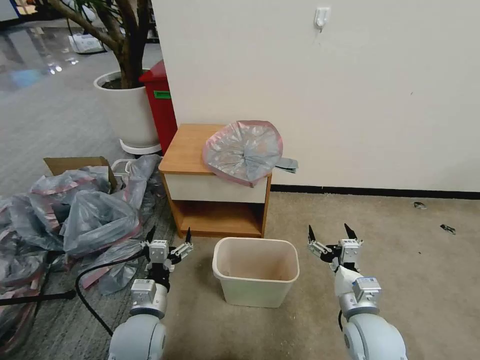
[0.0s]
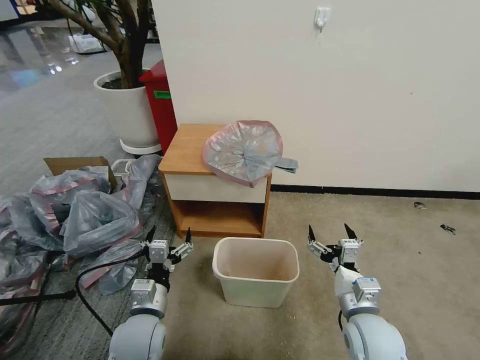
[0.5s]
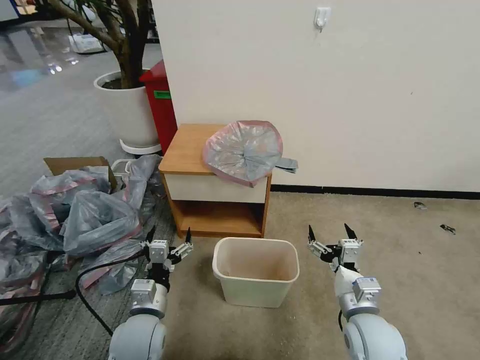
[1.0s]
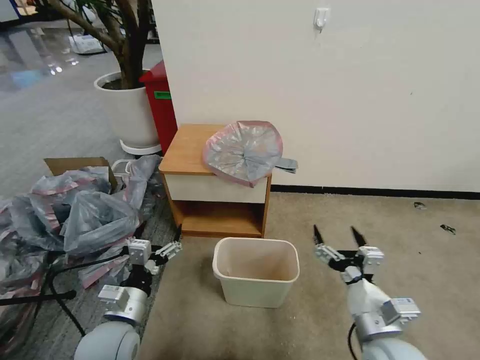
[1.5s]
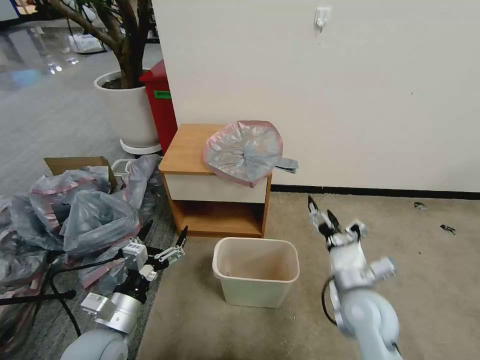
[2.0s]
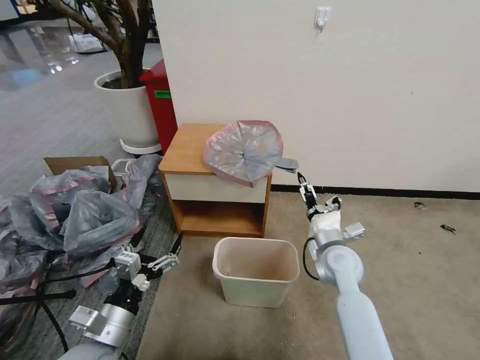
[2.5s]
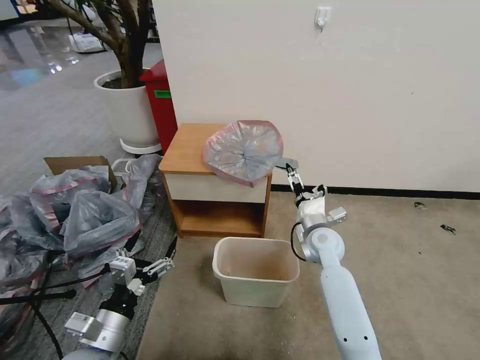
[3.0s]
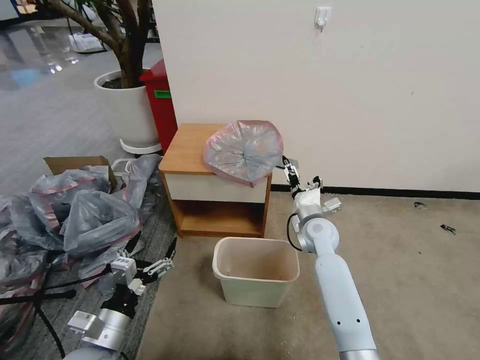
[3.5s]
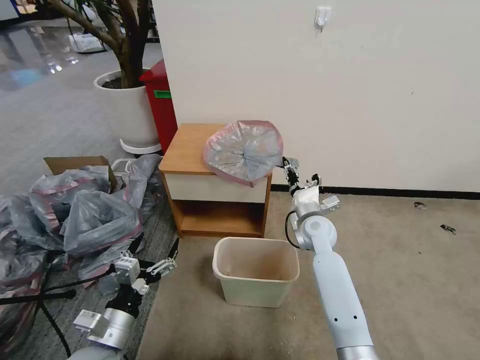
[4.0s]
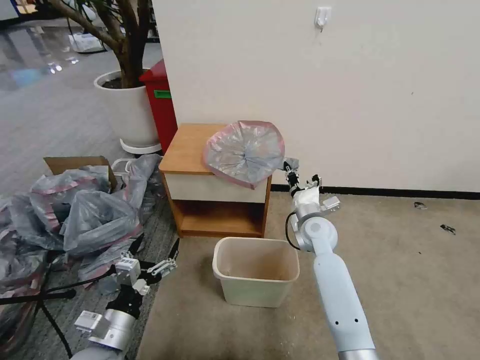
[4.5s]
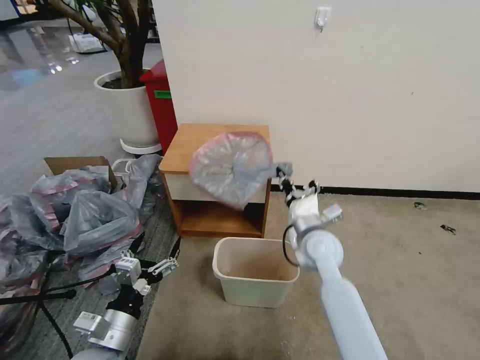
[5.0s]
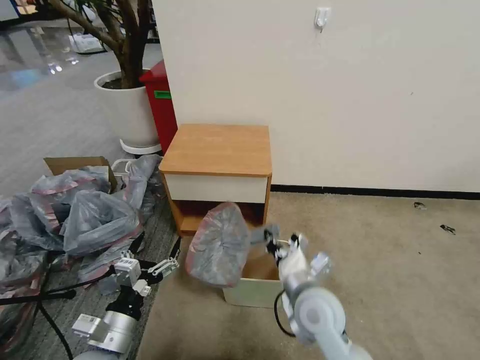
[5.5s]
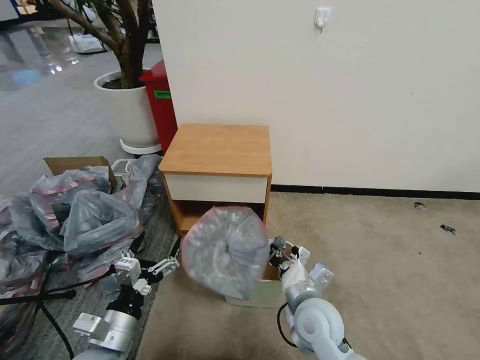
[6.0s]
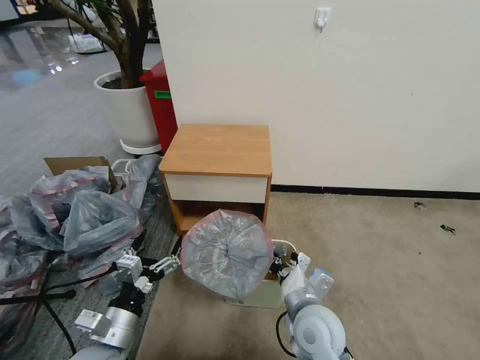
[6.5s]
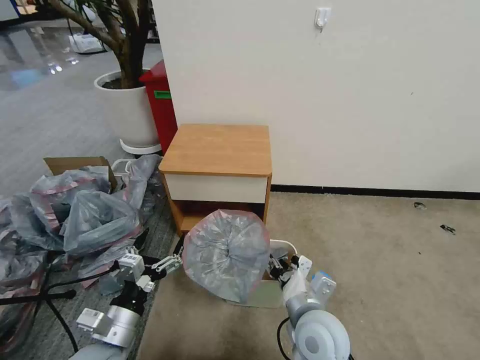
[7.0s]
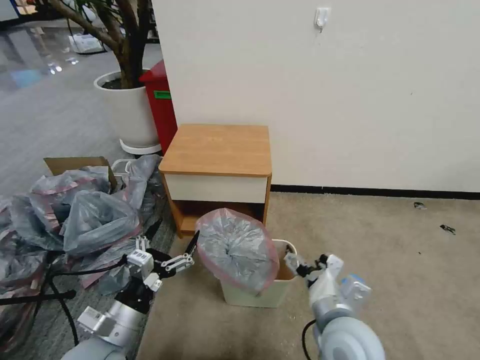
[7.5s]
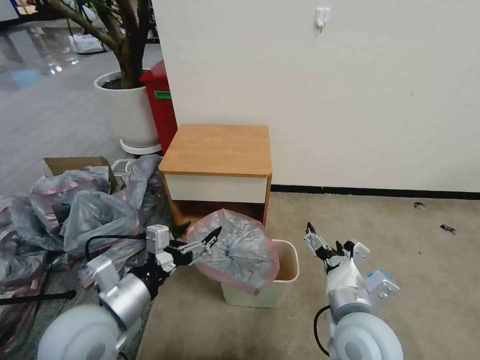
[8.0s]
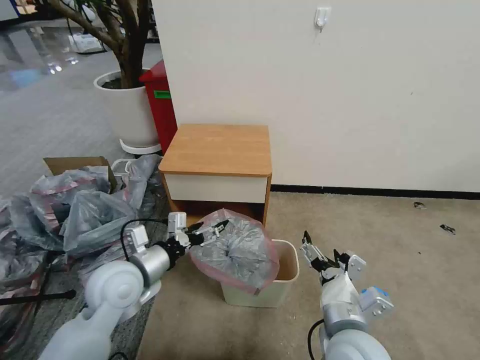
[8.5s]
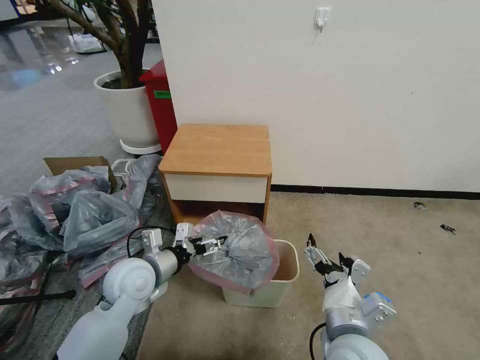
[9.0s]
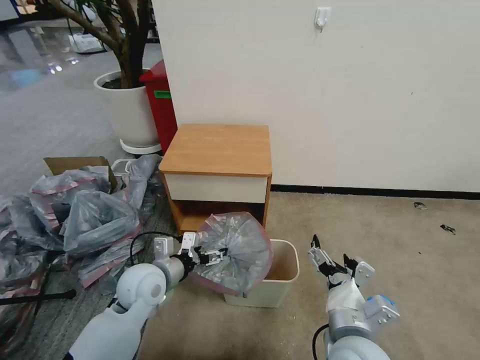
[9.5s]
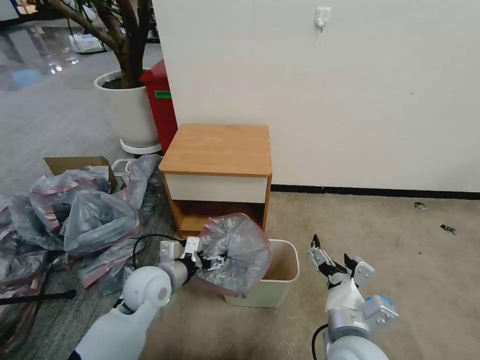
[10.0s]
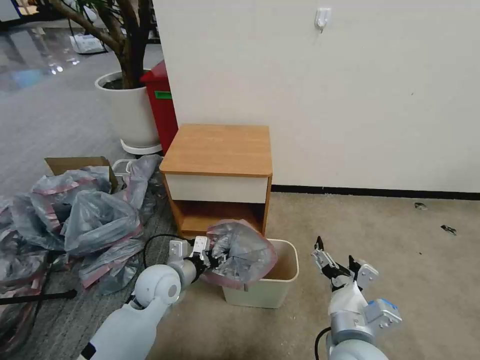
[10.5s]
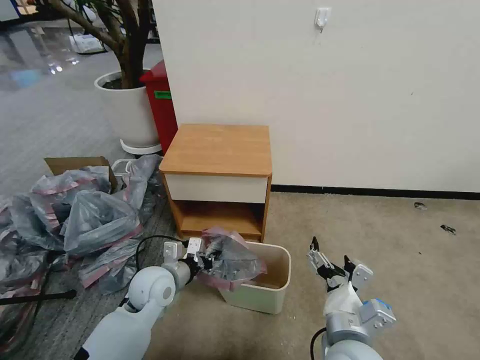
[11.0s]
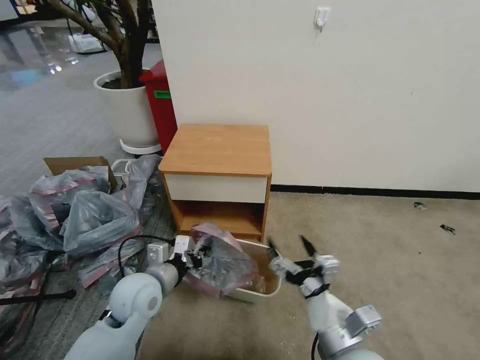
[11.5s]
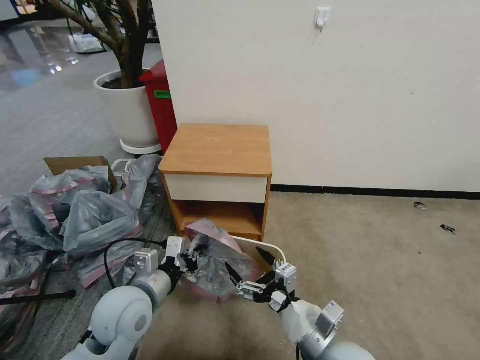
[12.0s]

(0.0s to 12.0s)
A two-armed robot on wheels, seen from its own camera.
Task of the whole recording: Pick up the garbage bag from the table and place it over the trash can.
2.0s - 4.0s: The right gripper moves forward, roughly 20 cm, and closes up.
4.0s - 6.0s: The right gripper goes roughly 20 cm backward, and closes.
6.0s - 8.0s: Both grippers move upward, some 10 cm. The right gripper opens its fingers.
8.0s - 10.0s: The left gripper shifts about 15 cm forward and downward.
10.0s - 12.0s: The left gripper goes roughly 10 cm backward and upward, and closes its fingers.

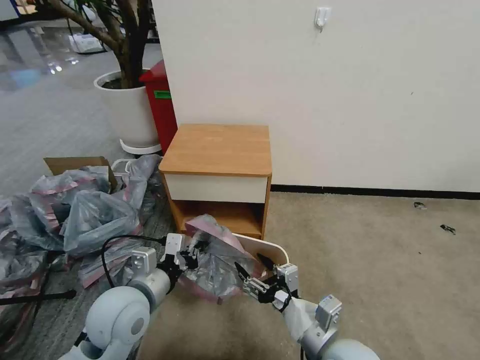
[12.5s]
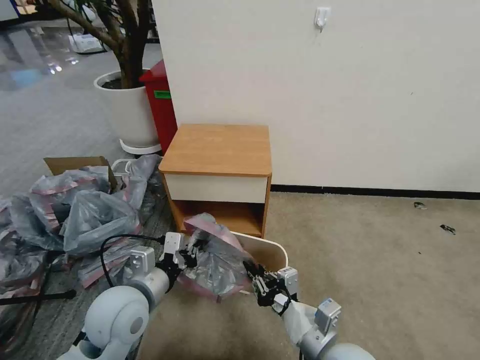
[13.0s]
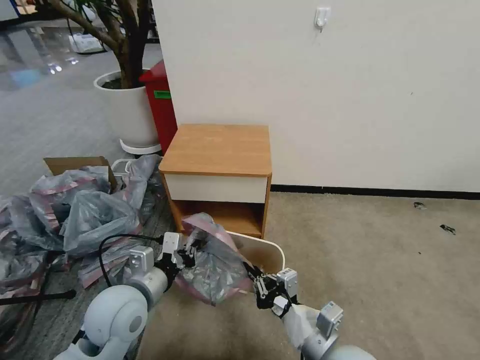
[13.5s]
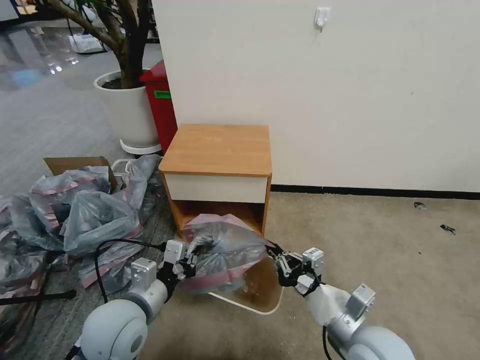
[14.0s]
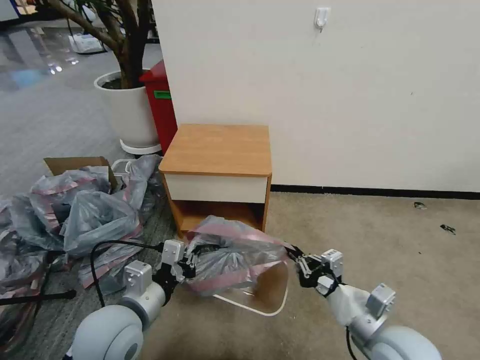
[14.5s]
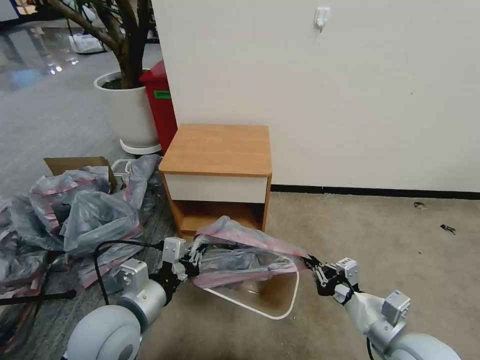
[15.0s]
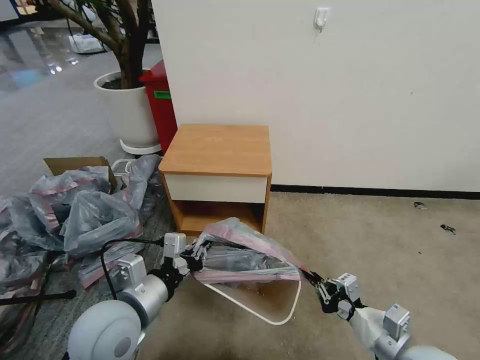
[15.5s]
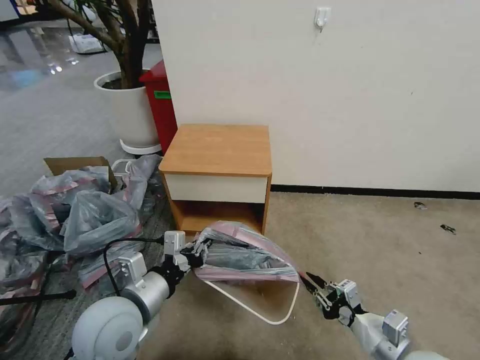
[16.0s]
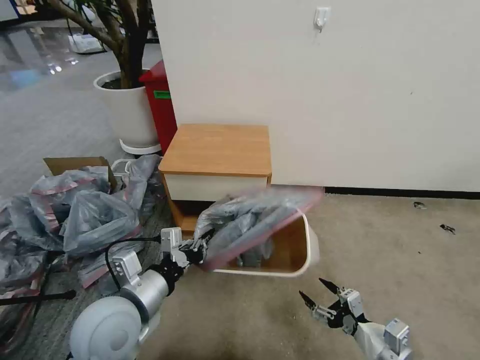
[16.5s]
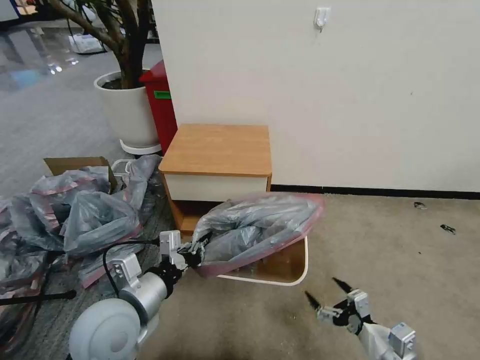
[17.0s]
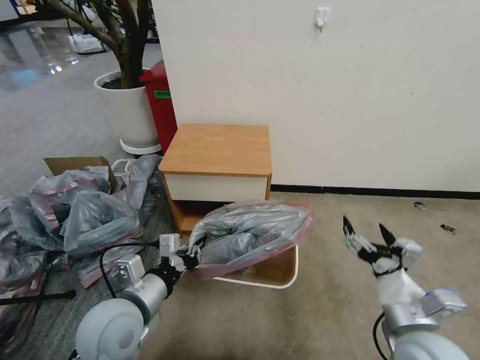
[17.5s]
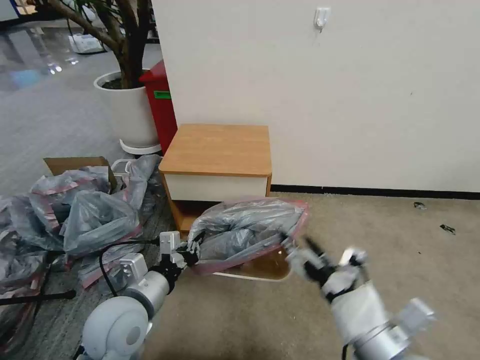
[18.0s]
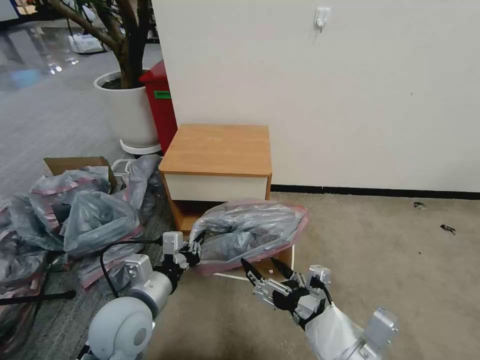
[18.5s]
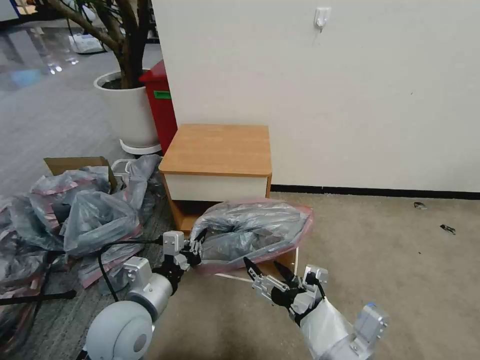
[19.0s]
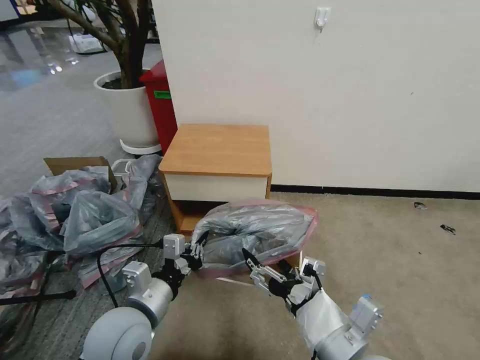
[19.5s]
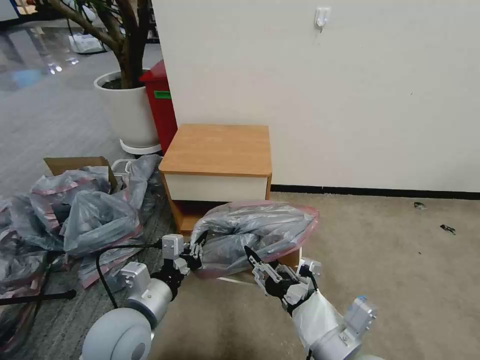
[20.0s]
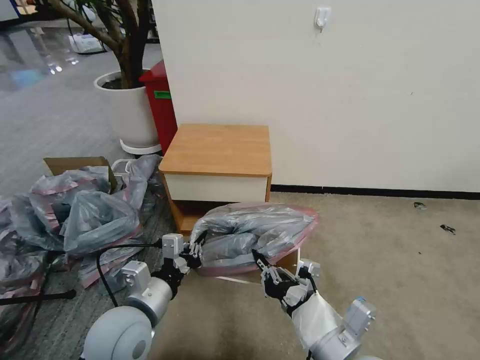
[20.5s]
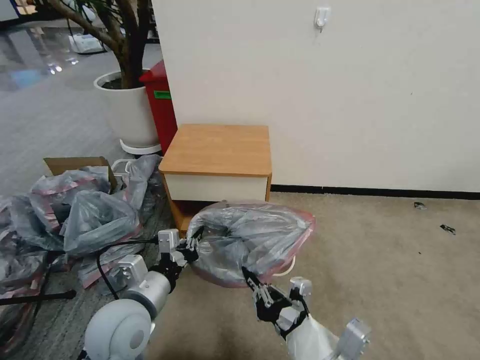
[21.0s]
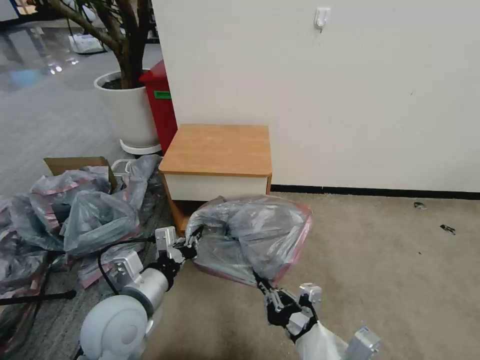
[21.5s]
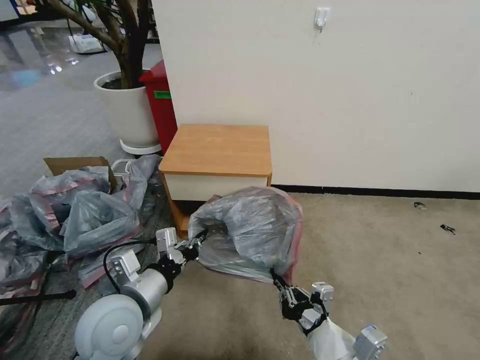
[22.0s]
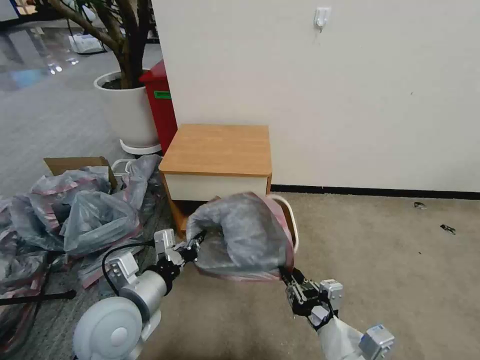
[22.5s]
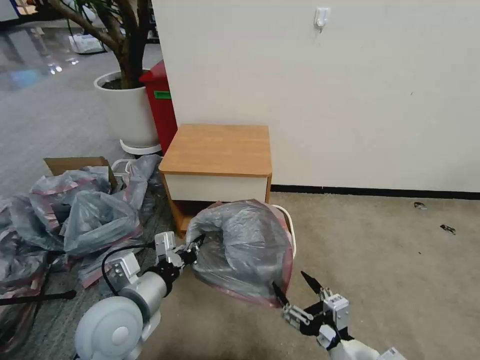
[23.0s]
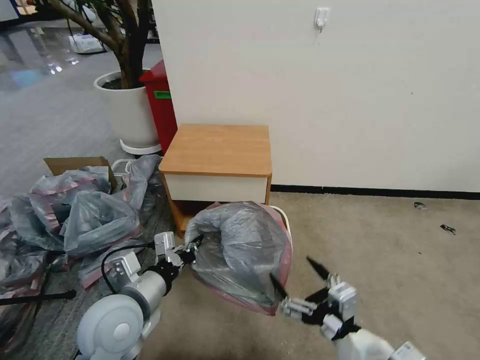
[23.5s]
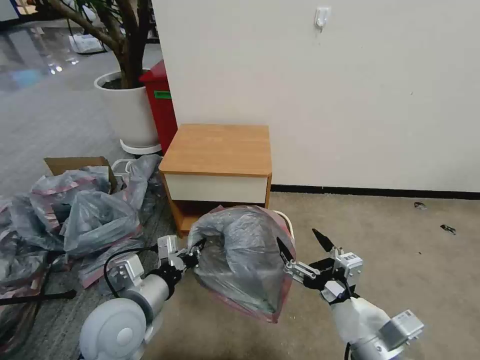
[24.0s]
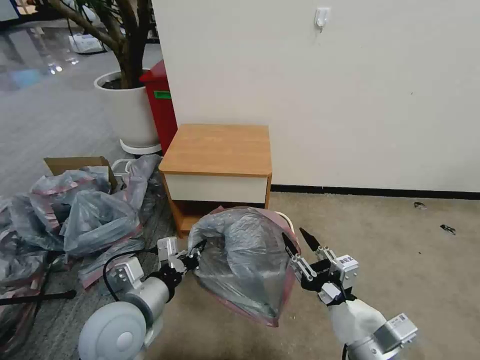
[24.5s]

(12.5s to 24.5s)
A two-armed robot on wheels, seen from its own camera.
Task of the whole recording: Pick up the garbage bag from the table and place it over the trash can.
12.5s - 14.5s: The right gripper goes about 10 cm to the right, and closes its fingers.
14.5s - 16.5s: The right gripper is displaced downward and to the right by some 10 cm, and opens up.
16.5s - 18.5s: The right gripper moves to the left and upward, roughly 20 cm.
18.5s - 20.5s: The right gripper closes.
20.5s - 22.5s: The right gripper is displaced downward by about 5 cm.
22.5s - 24.5s: The right gripper opens and closes again.

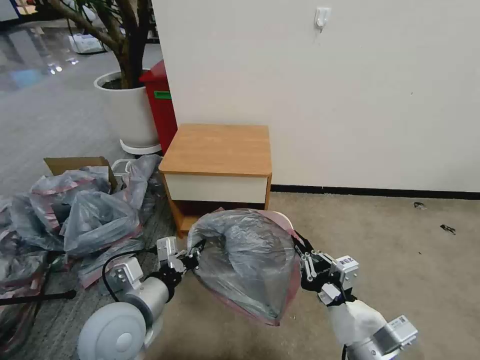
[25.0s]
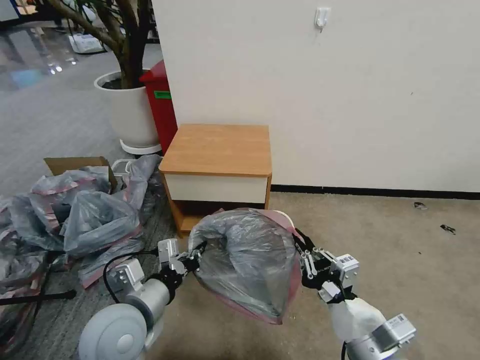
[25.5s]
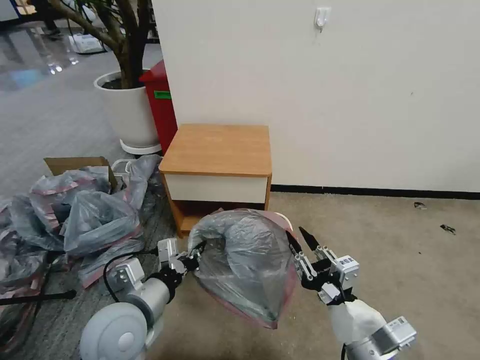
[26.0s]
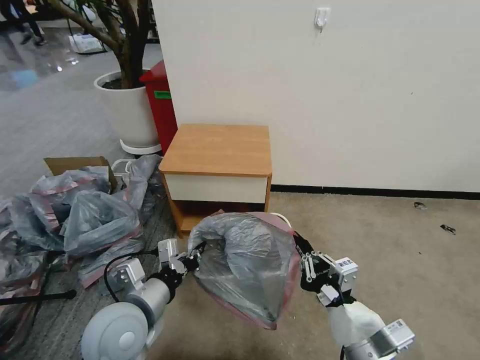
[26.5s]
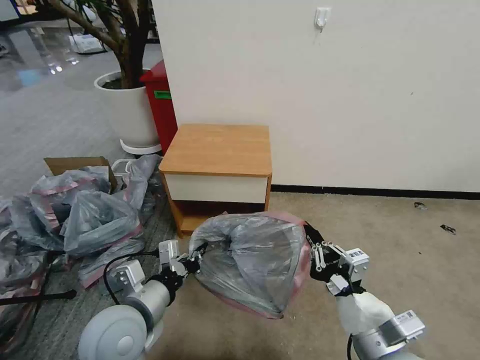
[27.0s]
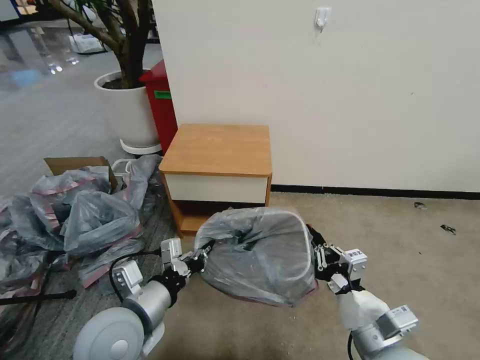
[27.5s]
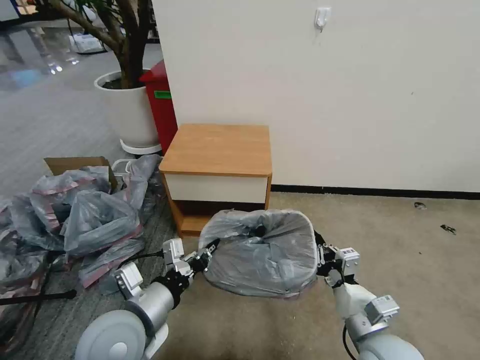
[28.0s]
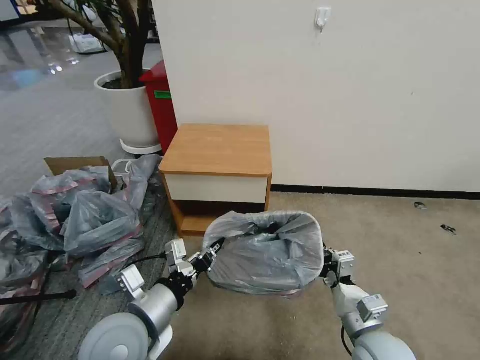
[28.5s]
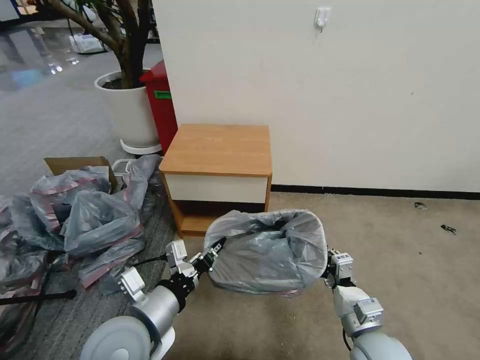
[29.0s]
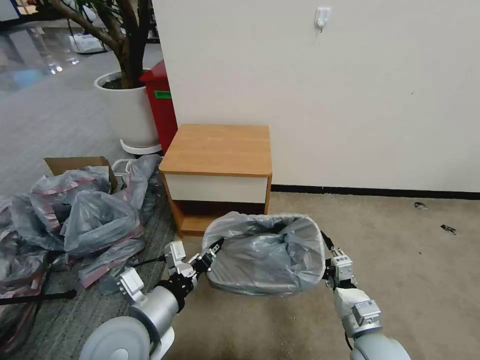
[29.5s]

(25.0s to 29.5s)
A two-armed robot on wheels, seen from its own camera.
Task of the whole recording: Pick up the garbage bag from the table and place it over the trash can.
25.0s - 27.0s: The right gripper opens and closes again.
27.0s - 29.5s: The right gripper goes about 10 cm downward.
